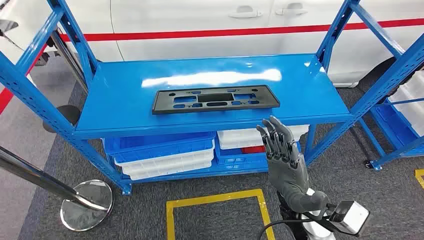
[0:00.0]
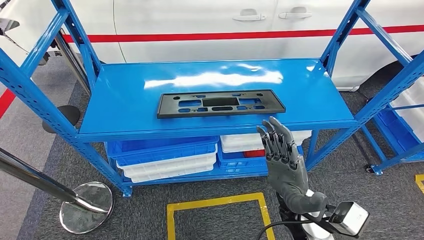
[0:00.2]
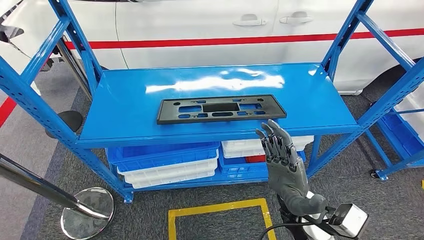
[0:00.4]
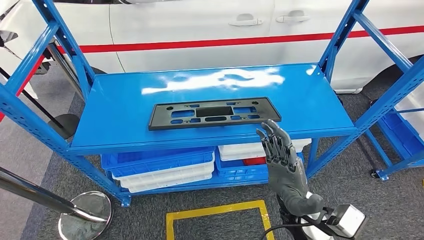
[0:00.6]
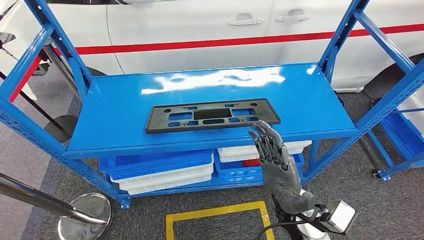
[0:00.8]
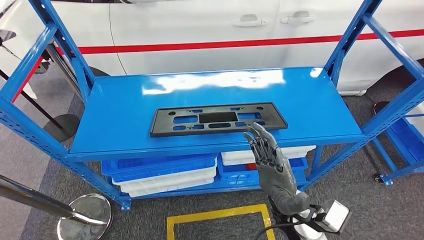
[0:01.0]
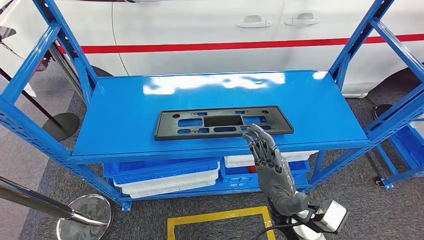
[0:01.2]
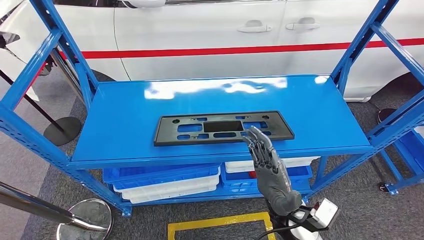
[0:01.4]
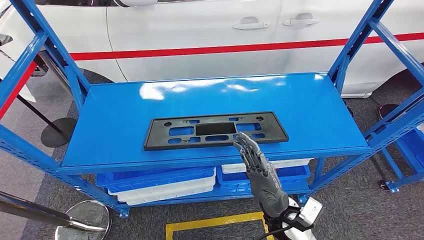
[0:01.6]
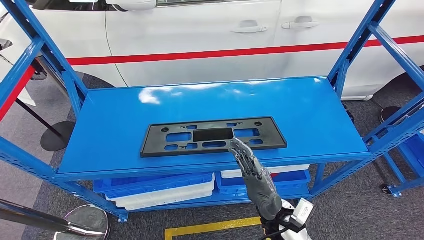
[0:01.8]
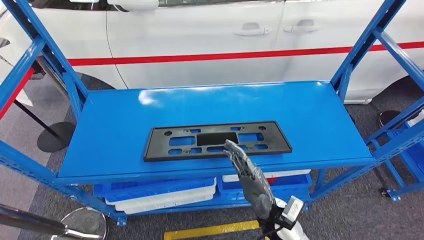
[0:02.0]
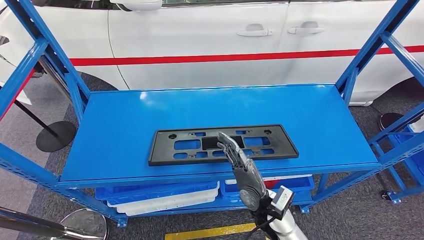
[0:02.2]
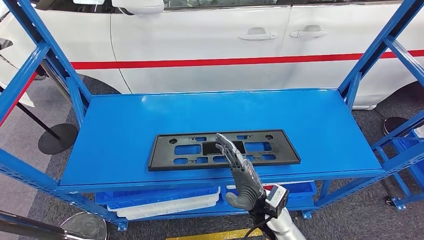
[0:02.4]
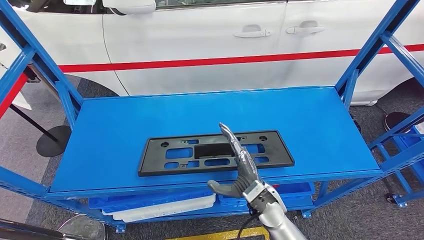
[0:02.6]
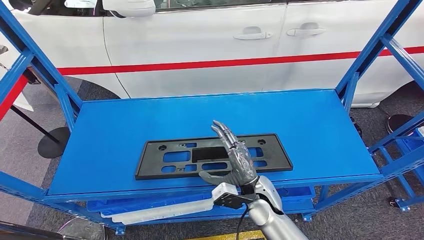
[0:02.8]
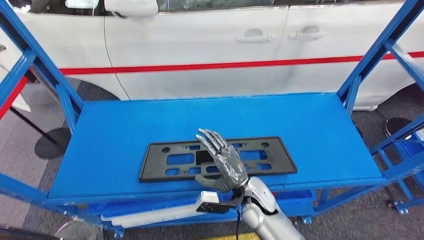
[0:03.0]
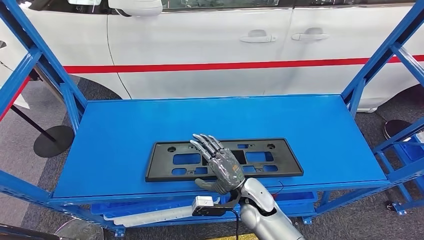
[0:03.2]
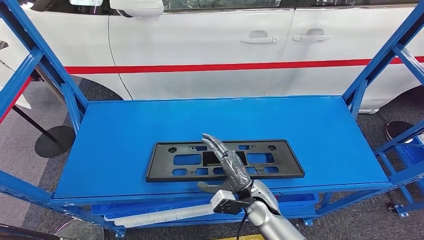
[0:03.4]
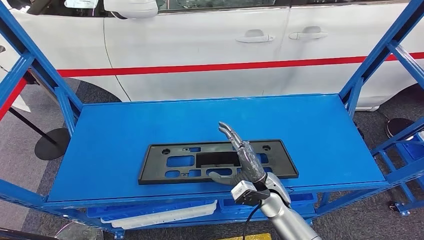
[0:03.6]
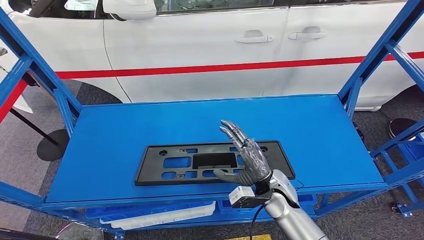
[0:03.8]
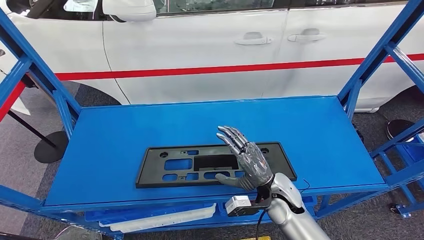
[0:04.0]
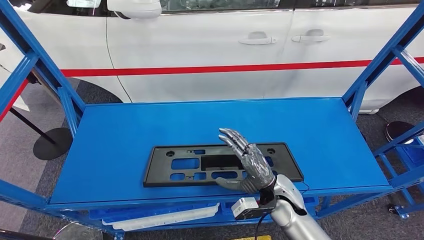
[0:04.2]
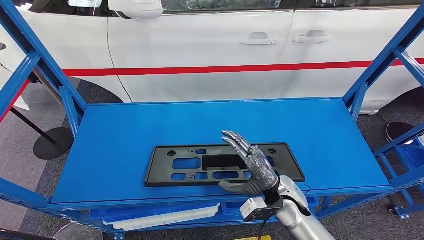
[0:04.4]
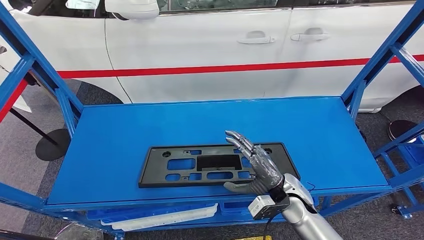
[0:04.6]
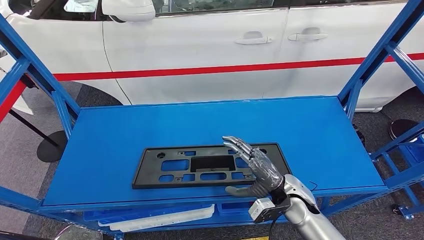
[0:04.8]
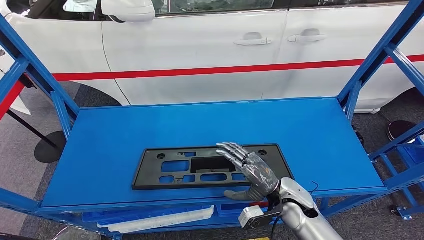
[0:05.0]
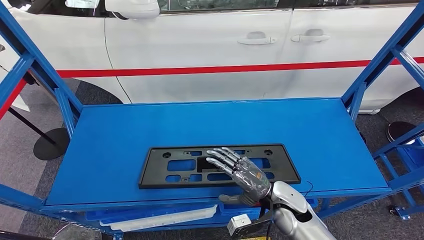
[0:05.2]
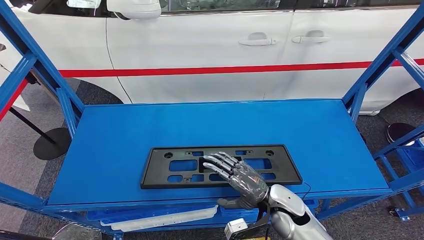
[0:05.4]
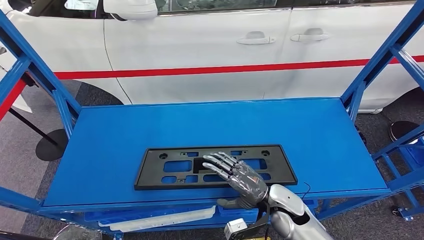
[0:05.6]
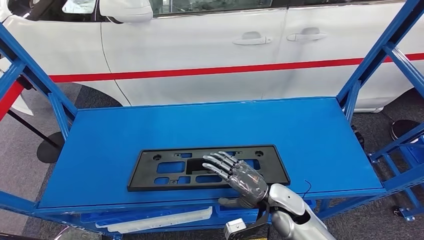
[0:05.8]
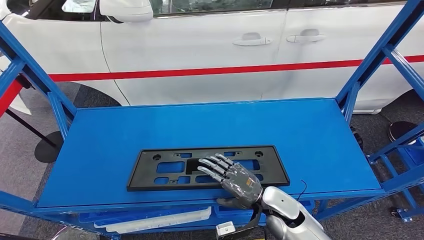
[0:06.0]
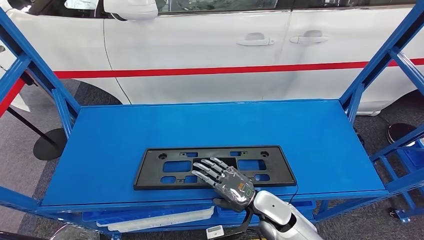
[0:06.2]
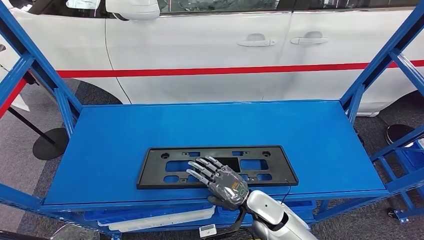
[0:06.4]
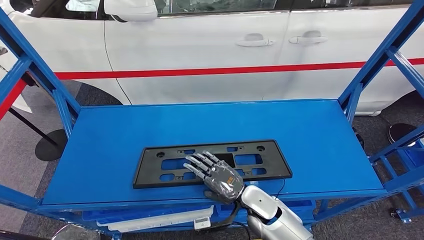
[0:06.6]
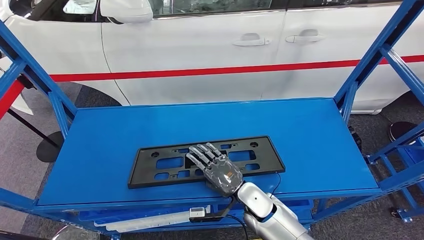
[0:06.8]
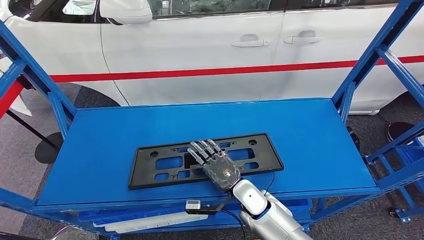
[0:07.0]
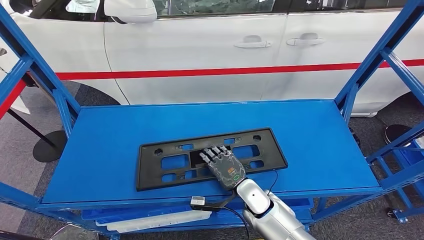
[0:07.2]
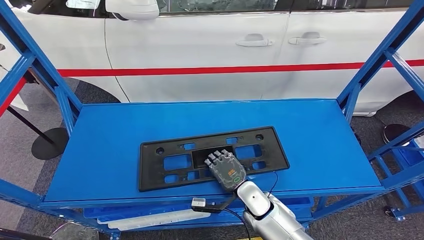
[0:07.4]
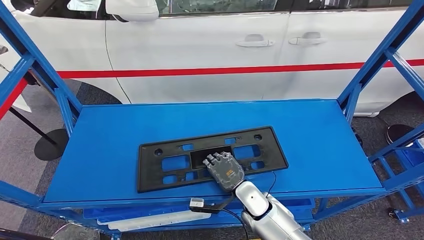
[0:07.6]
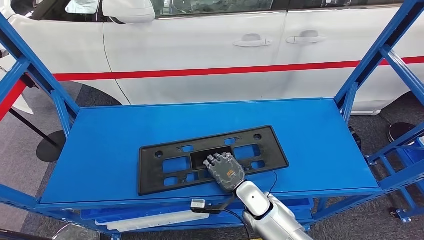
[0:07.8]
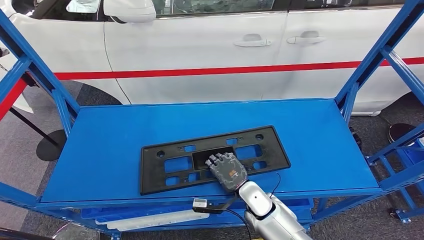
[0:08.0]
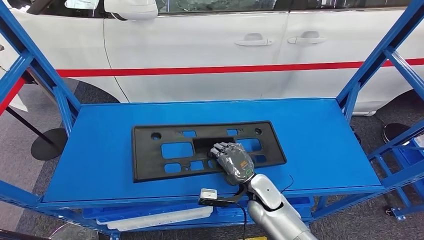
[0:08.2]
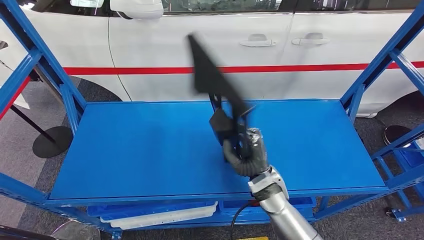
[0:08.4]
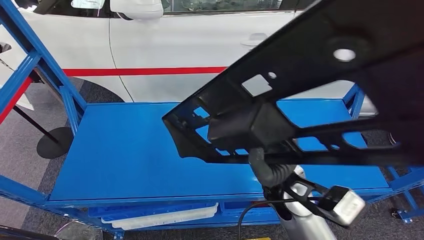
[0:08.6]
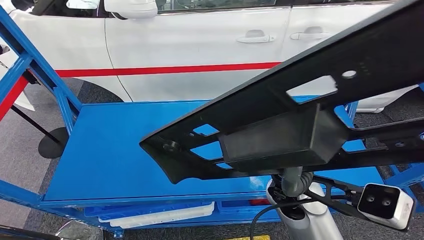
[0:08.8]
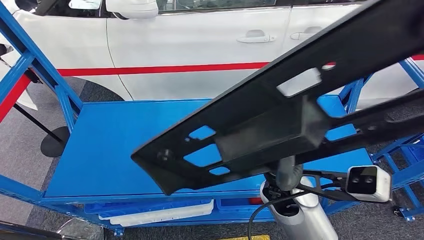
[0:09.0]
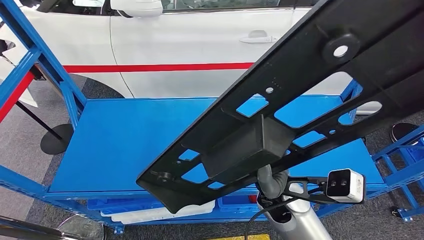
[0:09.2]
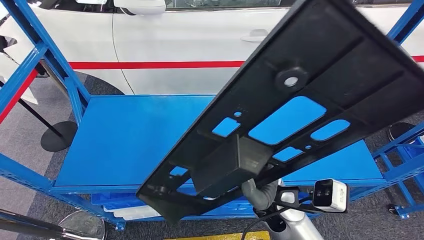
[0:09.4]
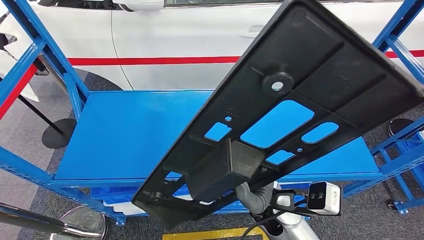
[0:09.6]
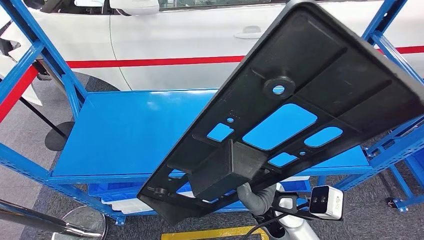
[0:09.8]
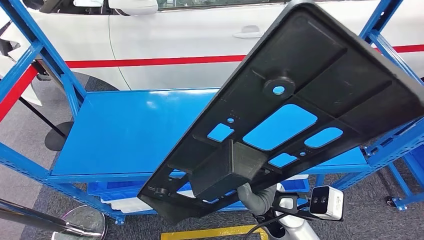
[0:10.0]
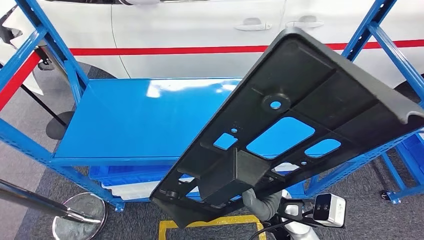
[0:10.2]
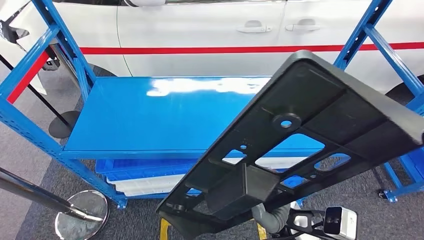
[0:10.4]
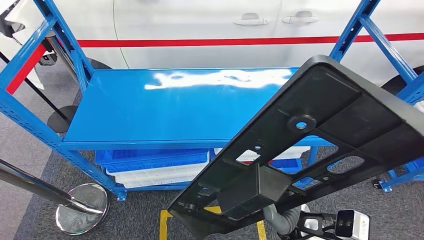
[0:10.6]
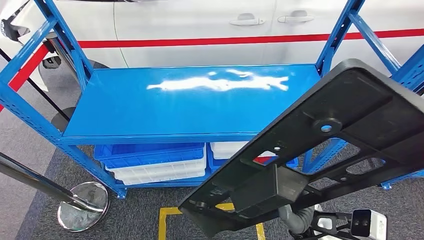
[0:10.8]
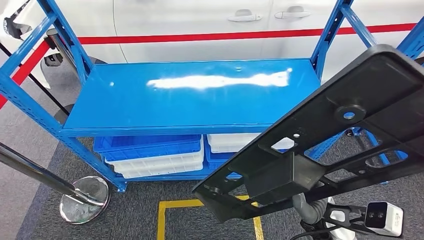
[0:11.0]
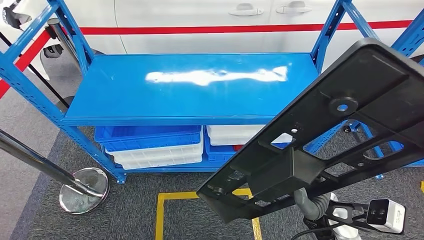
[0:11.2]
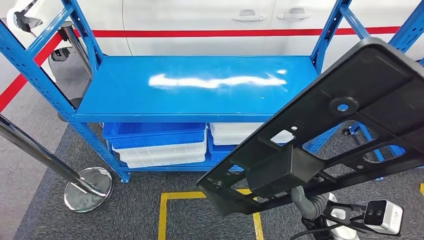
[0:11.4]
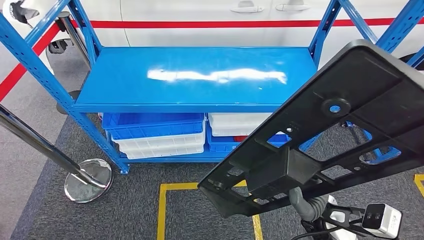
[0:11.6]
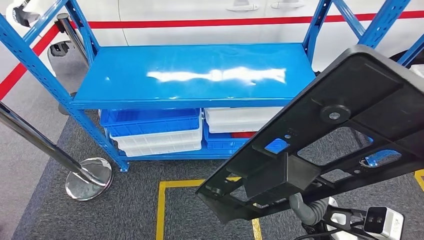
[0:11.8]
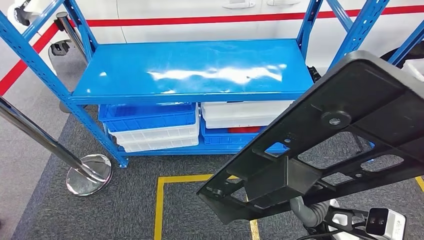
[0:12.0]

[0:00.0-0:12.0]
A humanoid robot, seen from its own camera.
Step, 0:00.0 to 0:08.8: Pick up the large material from the shelf.

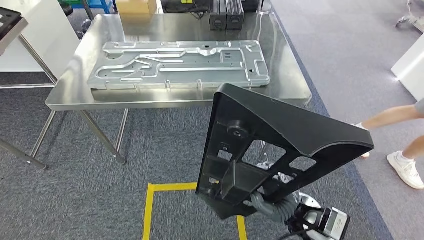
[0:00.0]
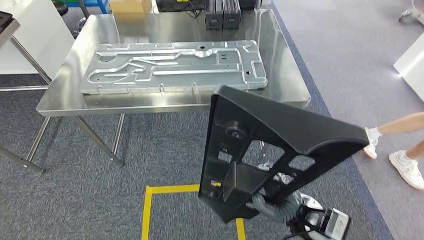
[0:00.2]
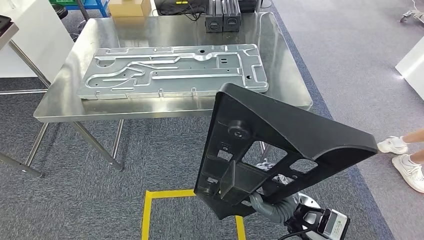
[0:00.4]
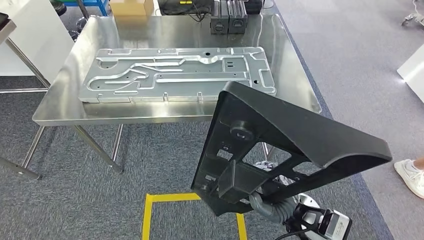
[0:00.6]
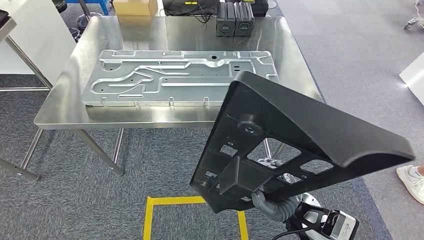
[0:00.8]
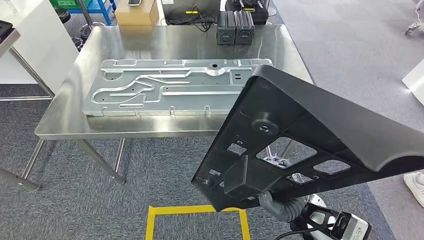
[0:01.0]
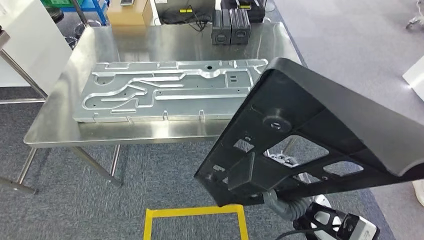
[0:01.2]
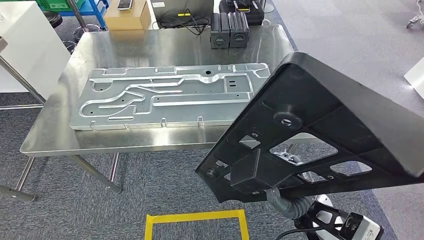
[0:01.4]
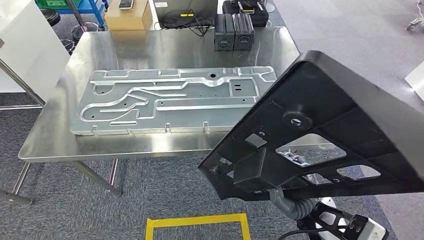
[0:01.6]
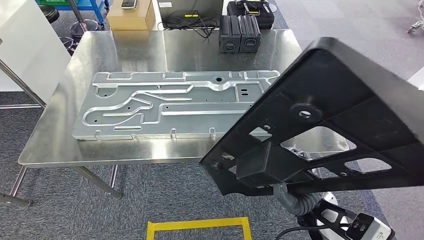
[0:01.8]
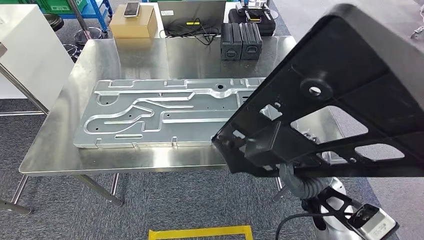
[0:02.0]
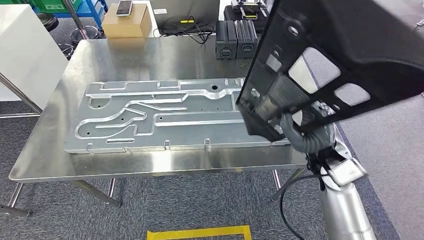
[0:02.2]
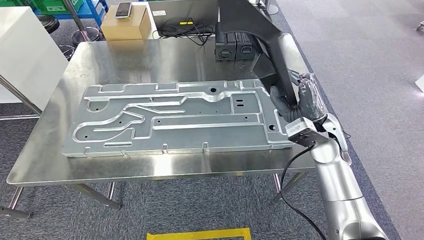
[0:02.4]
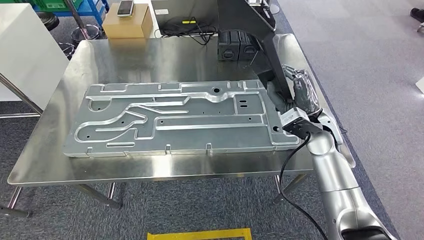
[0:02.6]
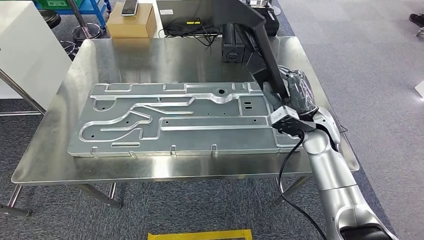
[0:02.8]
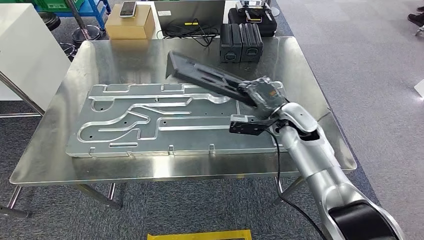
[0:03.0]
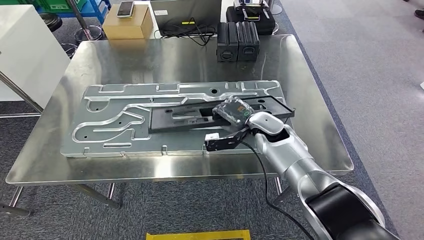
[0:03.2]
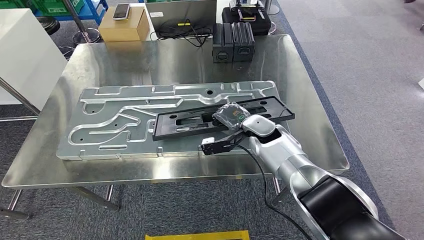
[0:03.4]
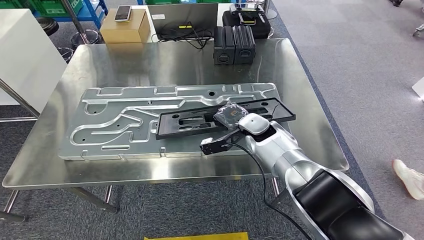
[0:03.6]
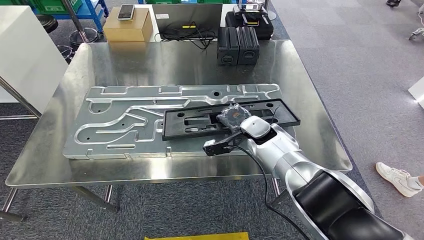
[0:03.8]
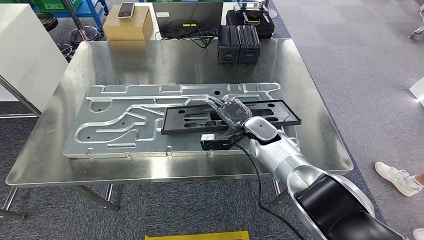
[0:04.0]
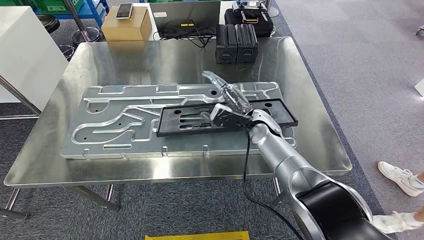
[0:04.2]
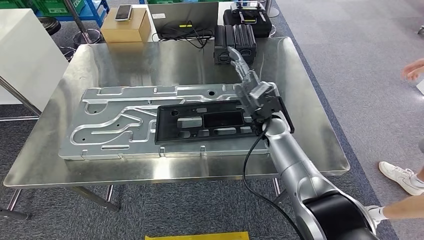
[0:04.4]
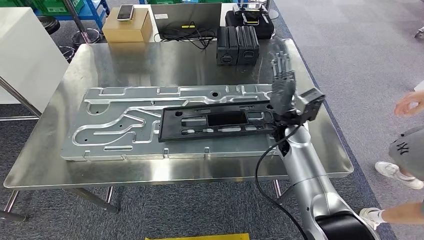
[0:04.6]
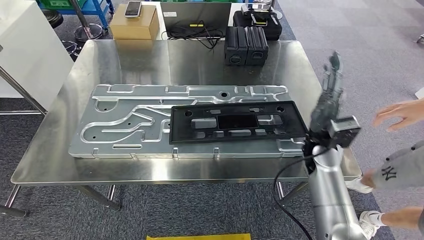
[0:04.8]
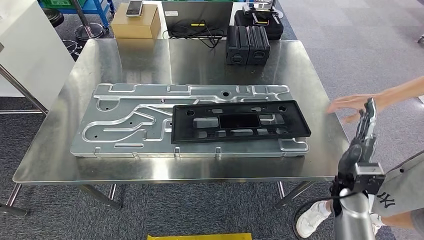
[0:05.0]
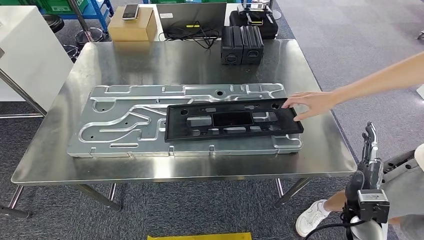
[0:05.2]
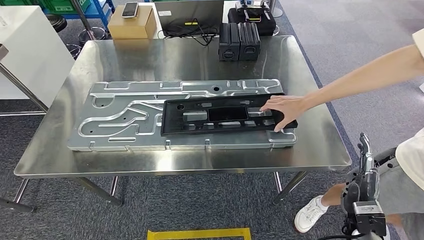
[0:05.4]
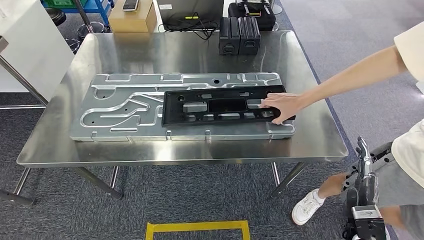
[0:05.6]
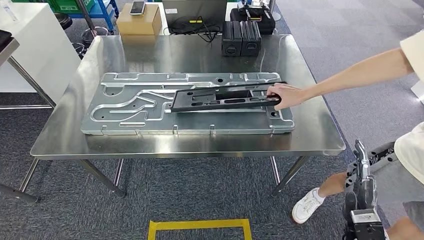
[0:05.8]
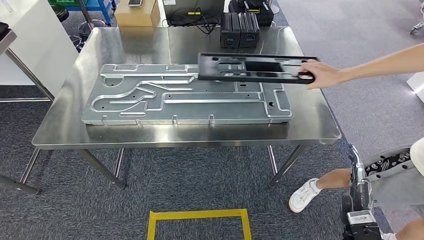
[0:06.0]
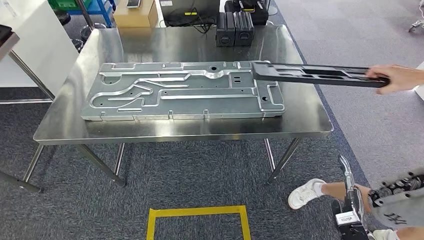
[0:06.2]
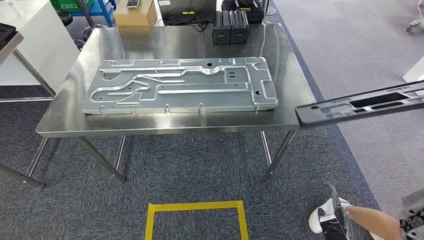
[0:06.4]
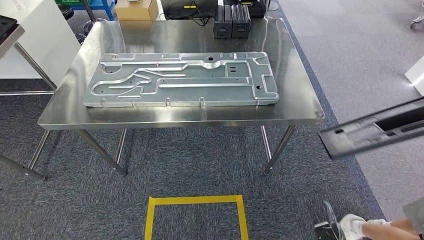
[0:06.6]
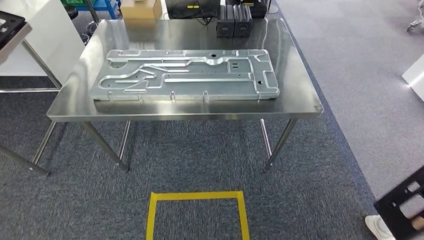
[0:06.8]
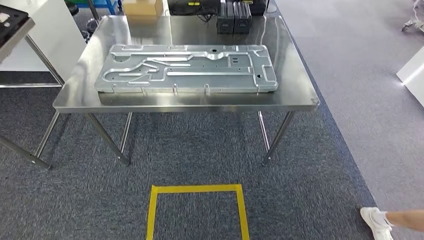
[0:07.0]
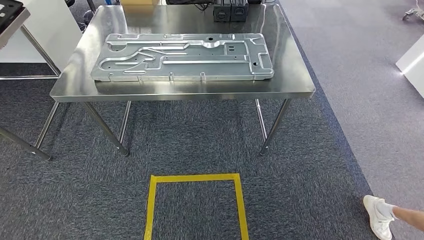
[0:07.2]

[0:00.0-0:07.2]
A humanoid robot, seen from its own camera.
Step, 0:03.8 to 0:04.8: Insert the large material into the corresponding slot on the workbench.
